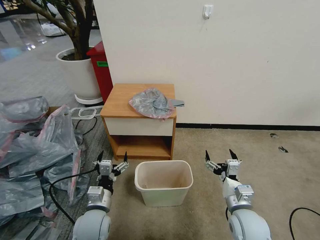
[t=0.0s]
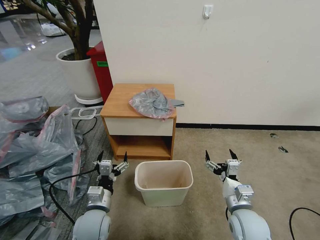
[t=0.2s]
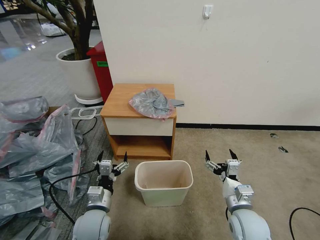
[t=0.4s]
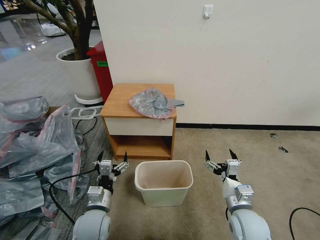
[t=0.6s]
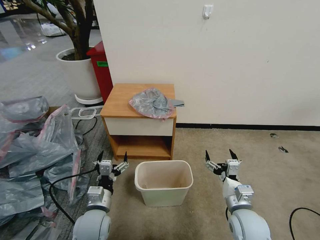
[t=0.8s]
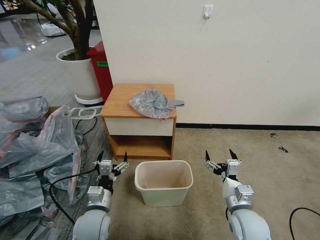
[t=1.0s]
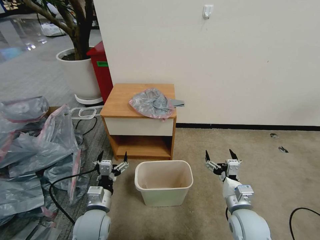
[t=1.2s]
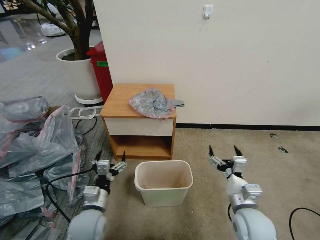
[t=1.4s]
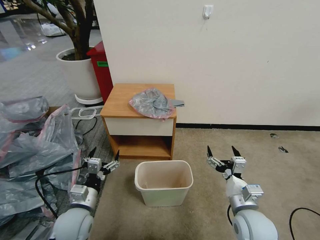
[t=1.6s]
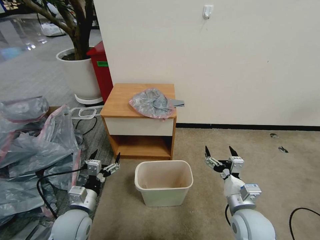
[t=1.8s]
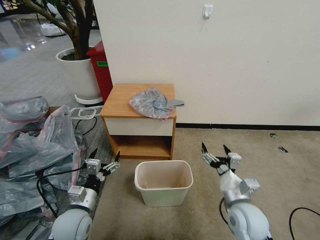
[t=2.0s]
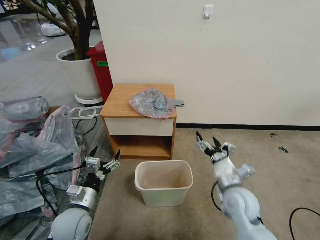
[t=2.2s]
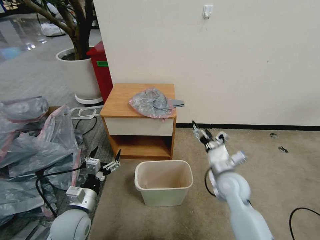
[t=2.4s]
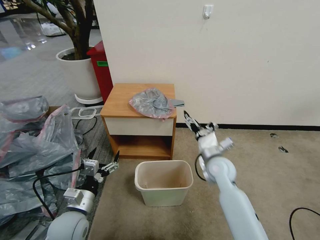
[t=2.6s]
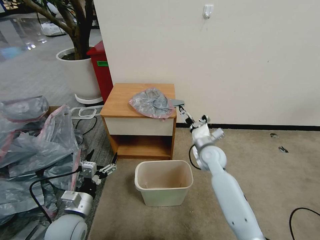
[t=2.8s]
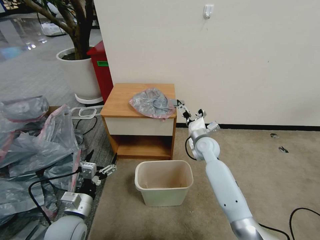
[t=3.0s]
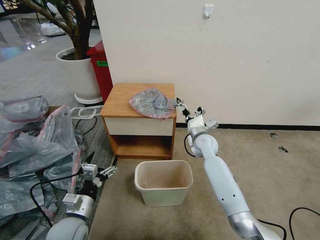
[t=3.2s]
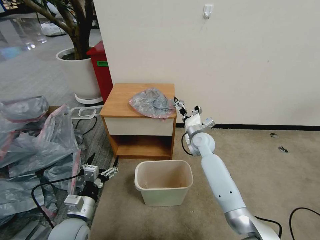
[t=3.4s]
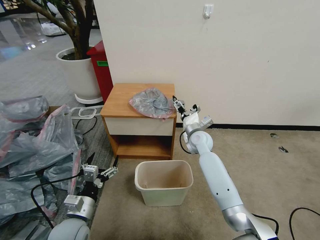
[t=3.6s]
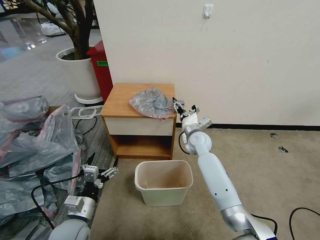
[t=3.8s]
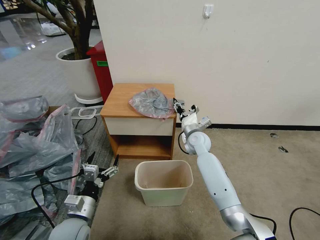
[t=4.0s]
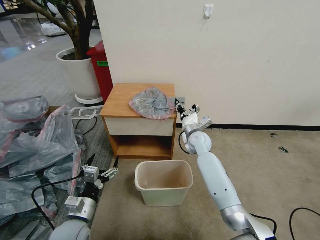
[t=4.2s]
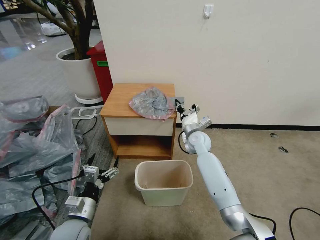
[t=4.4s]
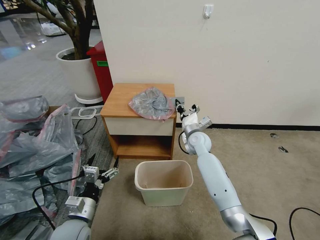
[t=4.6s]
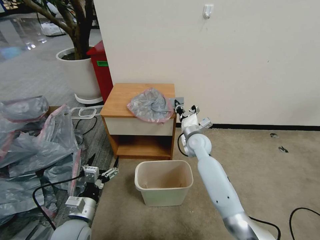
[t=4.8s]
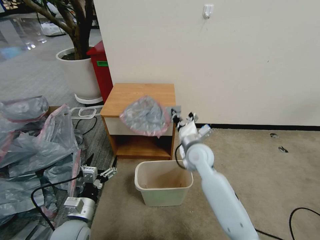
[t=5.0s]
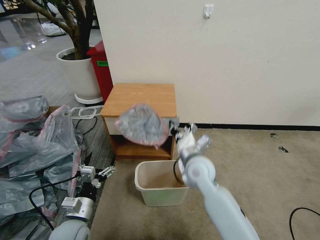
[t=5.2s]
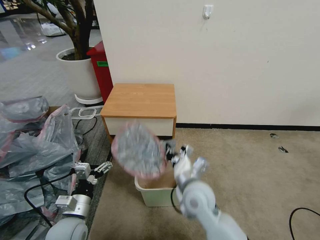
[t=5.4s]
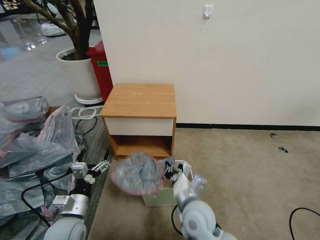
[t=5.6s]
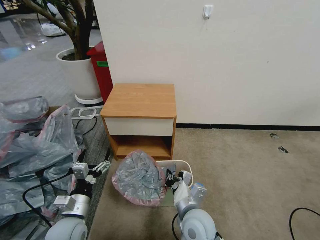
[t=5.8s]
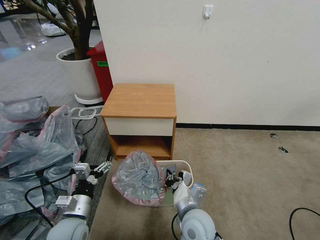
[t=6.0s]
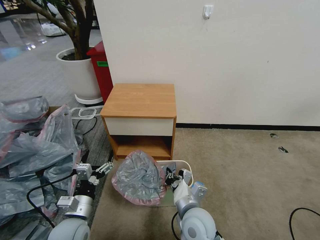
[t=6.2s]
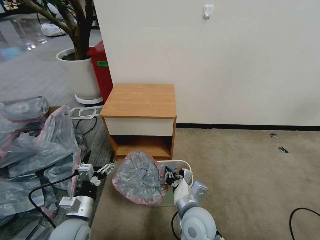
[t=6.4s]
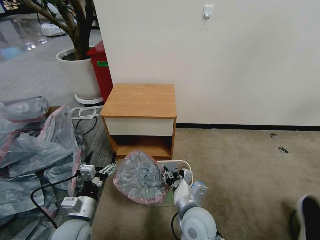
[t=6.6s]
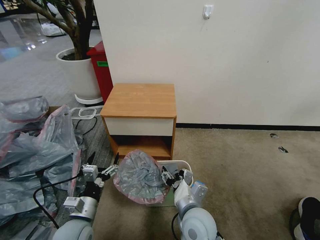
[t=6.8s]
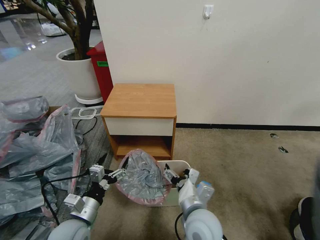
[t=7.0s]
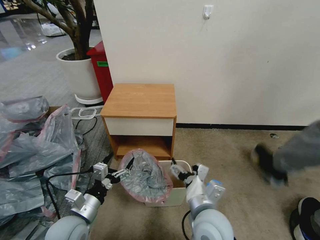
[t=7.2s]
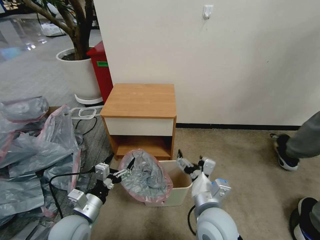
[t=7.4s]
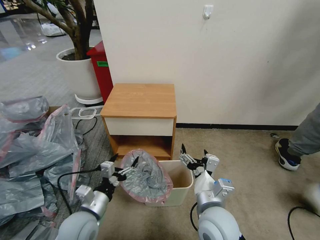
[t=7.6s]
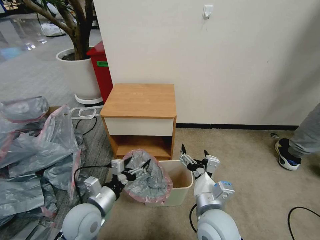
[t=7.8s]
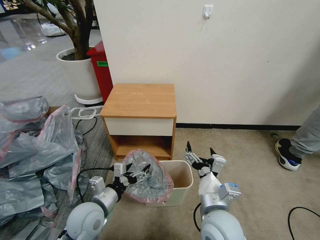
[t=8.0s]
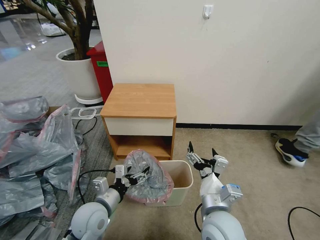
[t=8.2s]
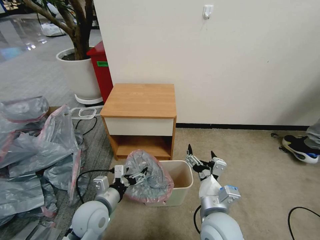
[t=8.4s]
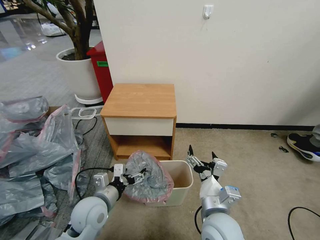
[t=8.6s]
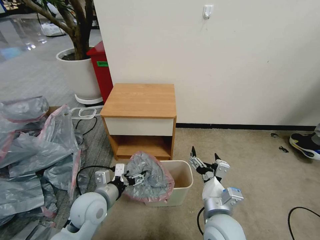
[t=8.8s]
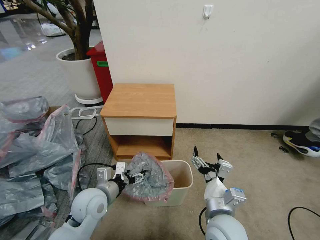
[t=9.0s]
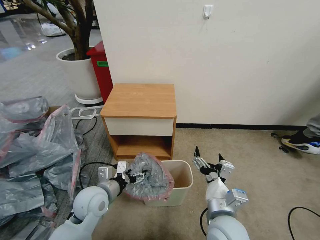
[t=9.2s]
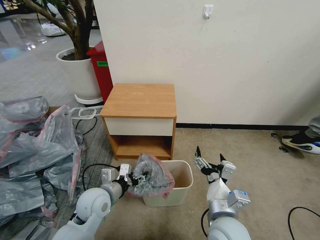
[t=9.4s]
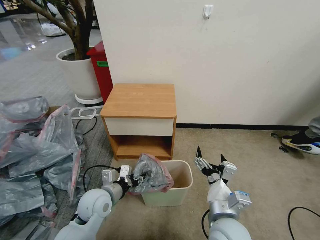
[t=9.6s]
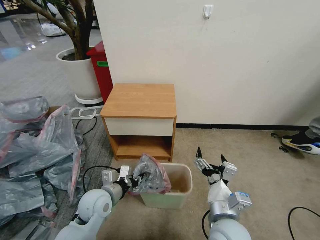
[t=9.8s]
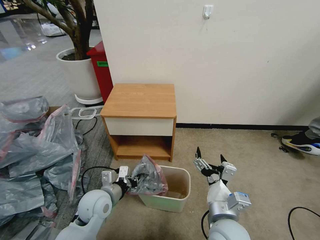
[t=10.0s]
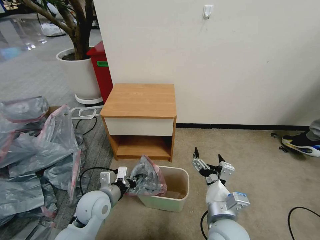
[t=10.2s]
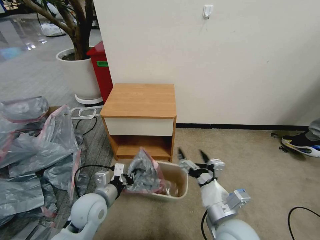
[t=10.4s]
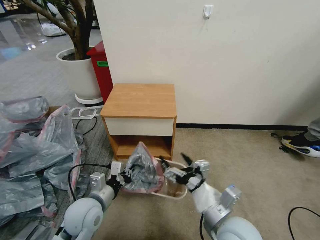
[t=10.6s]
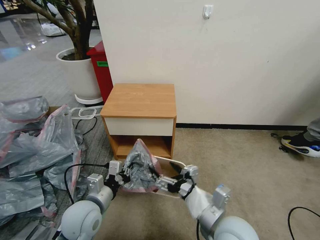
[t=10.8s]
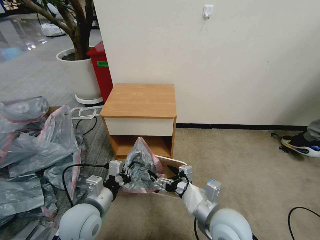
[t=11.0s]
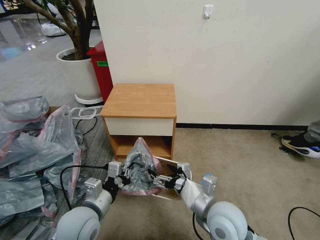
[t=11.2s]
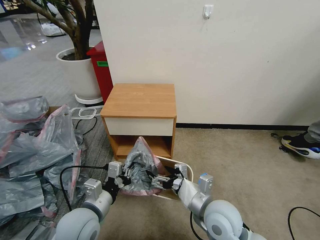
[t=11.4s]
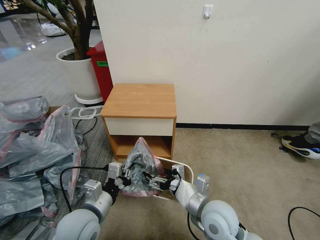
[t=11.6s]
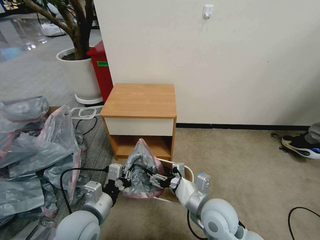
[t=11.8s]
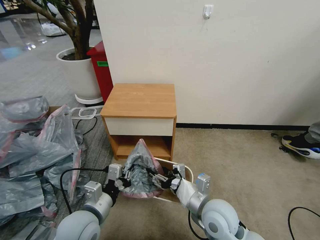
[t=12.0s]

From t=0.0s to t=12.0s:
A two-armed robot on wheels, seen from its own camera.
Task of the whole recording: Pick up the garbage bag from the table and place it over the trash can.
From t=1.6s to t=3.0s: The right gripper is displaced forward by about 25 cm.
From t=3.0s to t=4.4s: The right gripper closes.
From t=4.4s to t=6.0s: The right gripper is displaced backward by approximately 30 cm.
From t=6.0s to t=7.6s: The right gripper moves upward, approximately 5 cm, and opens its fingers.
From t=7.6s to t=9.0s: The left gripper shifts roughly 5 cm forward.
From t=9.0s to t=10.4s: The left gripper closes up.
From t=10.4s to t=12.0s: The right gripper shifts roughly 5 cm forward, and closes its fingers; the left gripper shifts roughly 5 cm backward.

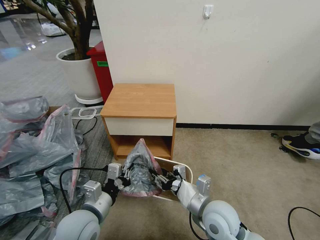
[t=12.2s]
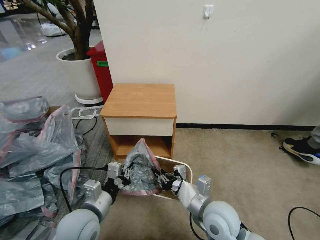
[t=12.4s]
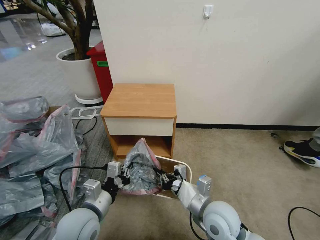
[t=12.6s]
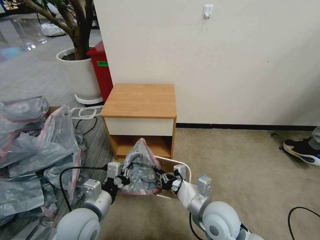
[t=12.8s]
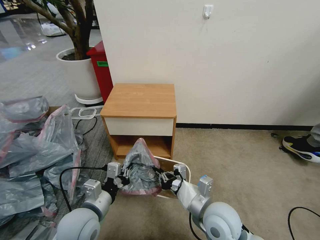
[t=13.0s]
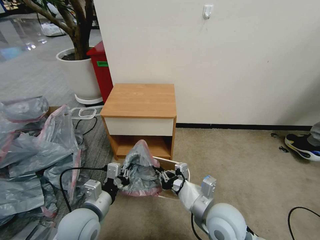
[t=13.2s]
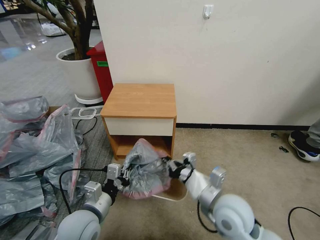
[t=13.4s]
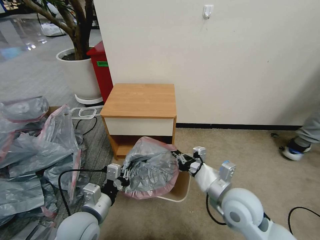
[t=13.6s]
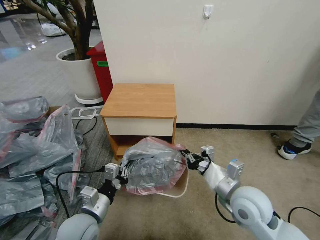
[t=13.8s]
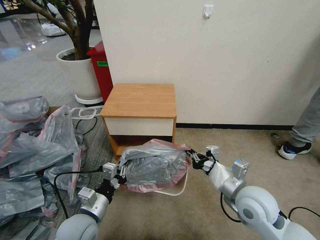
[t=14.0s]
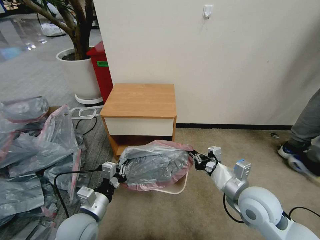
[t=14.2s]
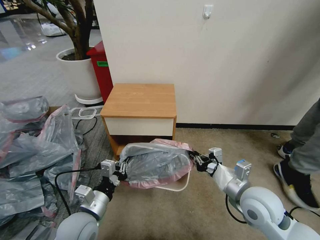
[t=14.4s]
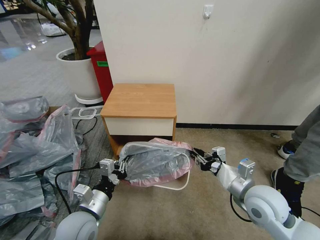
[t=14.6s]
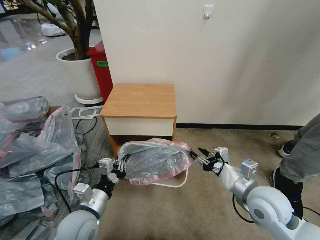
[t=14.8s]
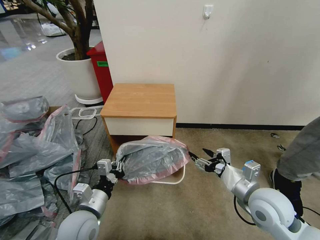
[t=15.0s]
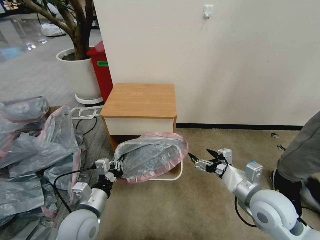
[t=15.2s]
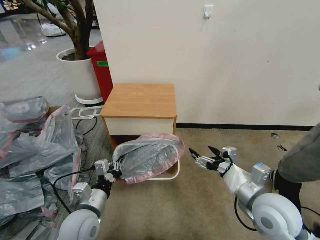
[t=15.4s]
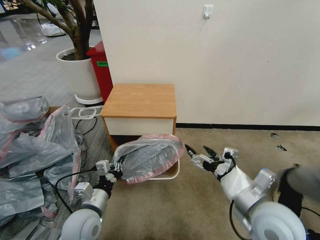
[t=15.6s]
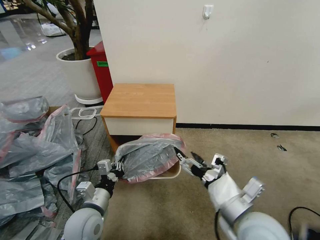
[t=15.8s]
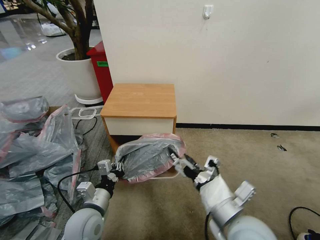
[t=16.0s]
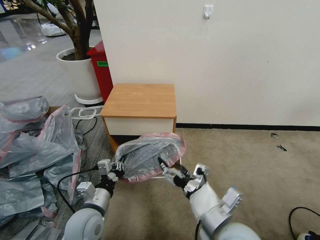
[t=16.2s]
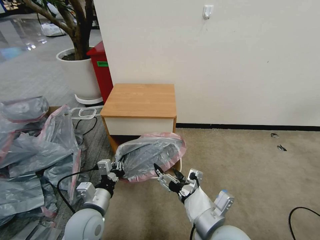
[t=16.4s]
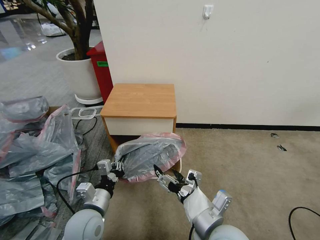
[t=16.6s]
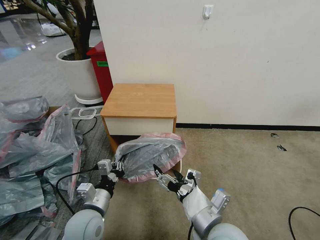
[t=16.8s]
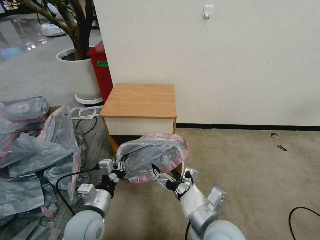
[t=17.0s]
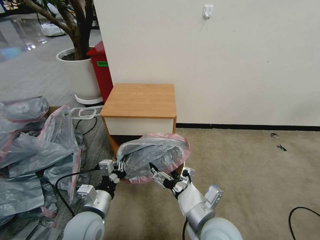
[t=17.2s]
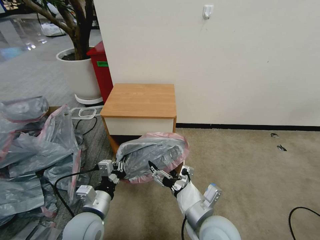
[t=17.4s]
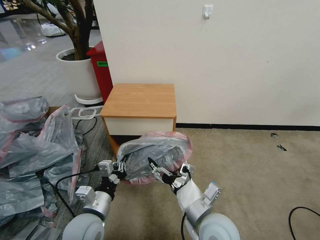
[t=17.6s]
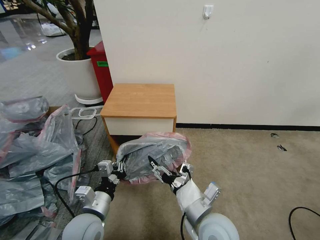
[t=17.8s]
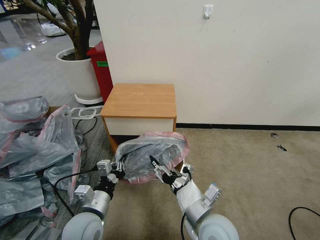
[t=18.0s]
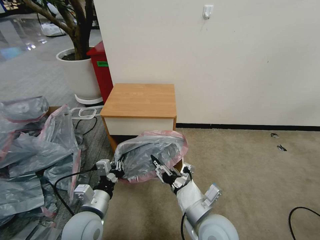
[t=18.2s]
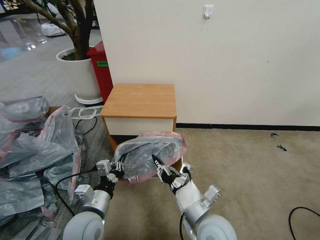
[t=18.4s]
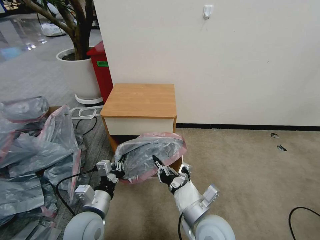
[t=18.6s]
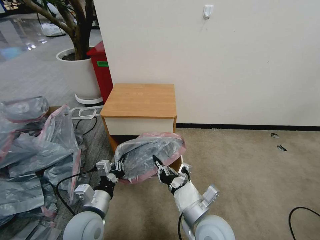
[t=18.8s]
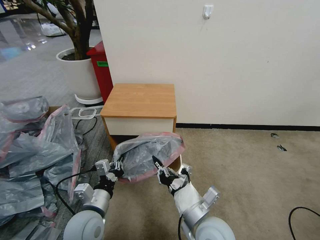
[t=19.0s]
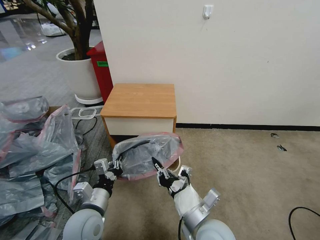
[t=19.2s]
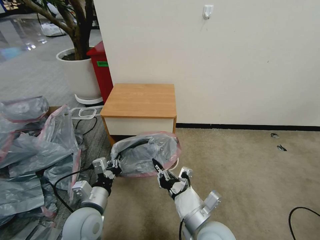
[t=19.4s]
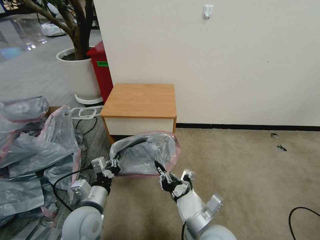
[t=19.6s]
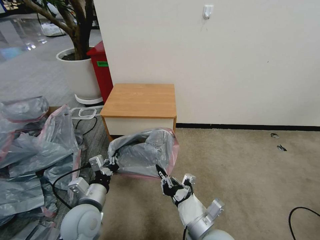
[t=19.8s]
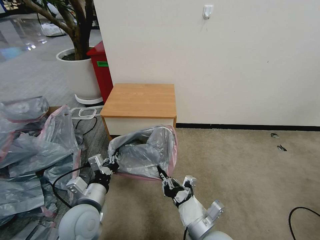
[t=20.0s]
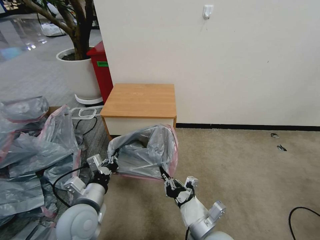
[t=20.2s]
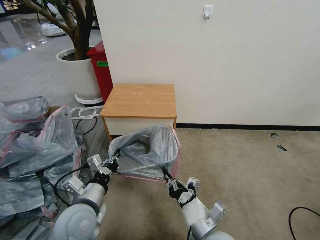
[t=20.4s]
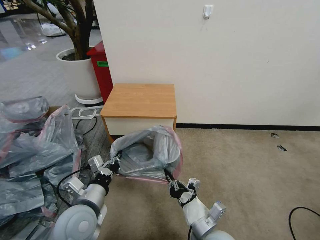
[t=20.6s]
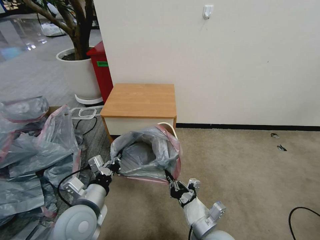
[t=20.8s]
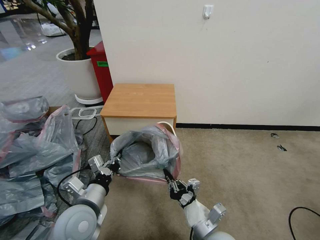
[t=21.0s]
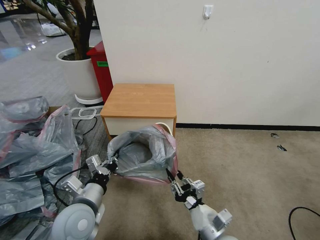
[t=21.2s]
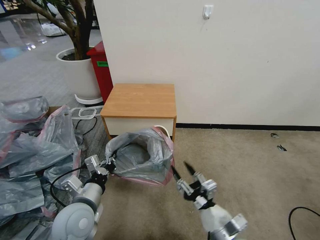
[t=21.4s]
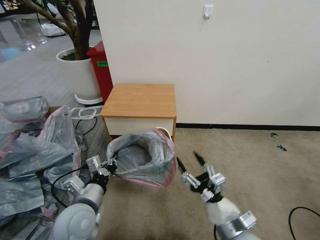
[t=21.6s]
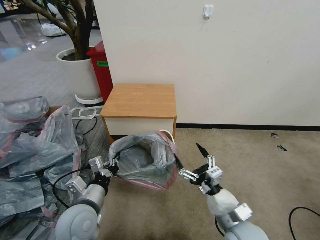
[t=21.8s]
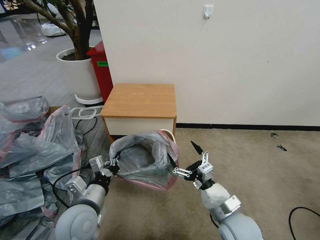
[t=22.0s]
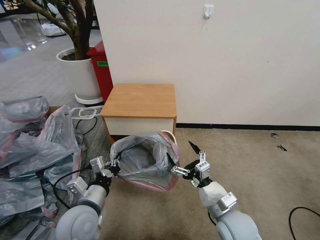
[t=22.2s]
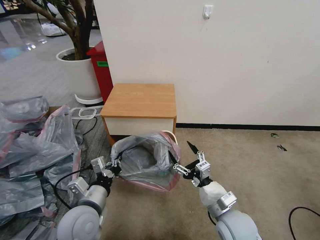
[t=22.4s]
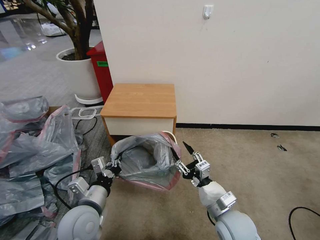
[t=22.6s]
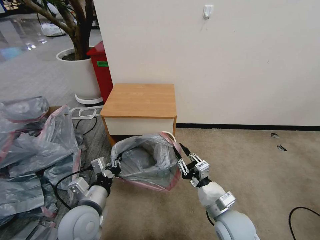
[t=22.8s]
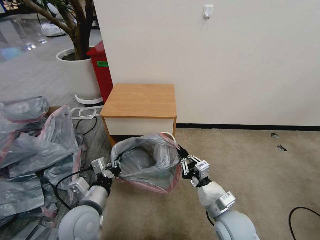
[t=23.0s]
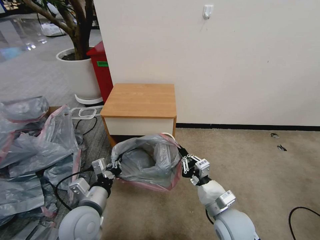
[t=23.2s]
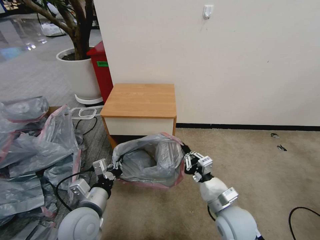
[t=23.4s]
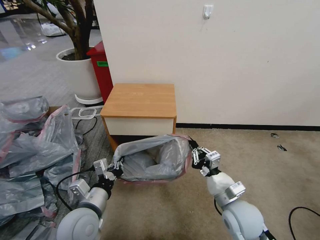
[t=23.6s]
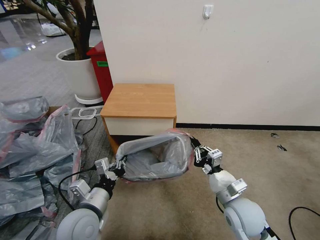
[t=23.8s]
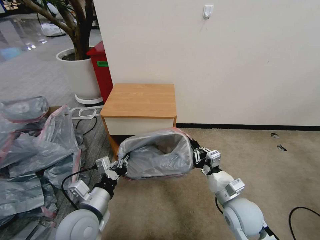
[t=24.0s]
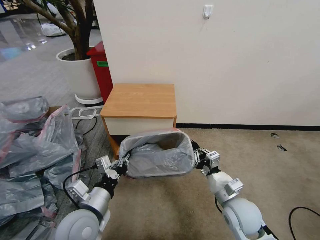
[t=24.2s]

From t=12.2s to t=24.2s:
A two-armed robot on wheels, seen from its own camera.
Task of the whole recording: Pick up the garbage bag from the table and place it over the trash can.
From t=12.2s to t=13.8s: The right gripper is displaced to the right by some 5 cm, and closes up.
From t=13.8s to t=15.2s: The right gripper moves about 5 cm, and opens up.
From t=15.2s to t=16.6s: The right gripper travels to the left and backward by approximately 15 cm.
From t=16.6s to t=18.2s: The right gripper closes up.
From t=18.2s to t=19.8s: The right gripper closes its fingers.
From t=19.8s to t=21.2s: The right gripper changes place by roughly 5 cm.
From t=21.2s to t=22.6s: The right gripper goes roughly 5 cm forward, and opens, then closes again.
From t=22.6s to t=24.2s: The right gripper changes place by about 5 cm, and closes its fingers.
